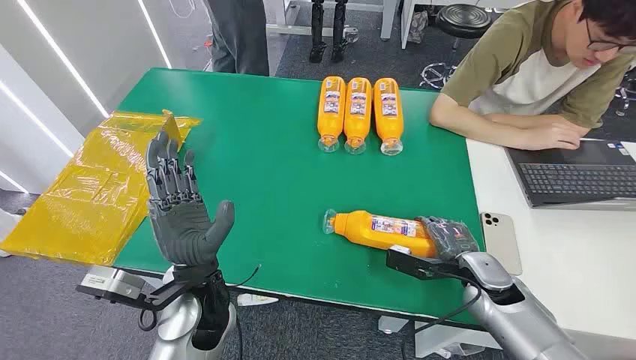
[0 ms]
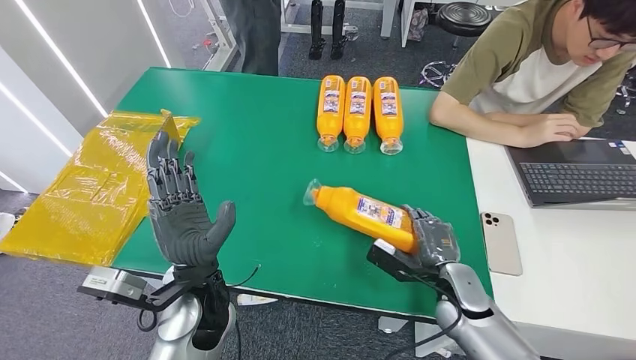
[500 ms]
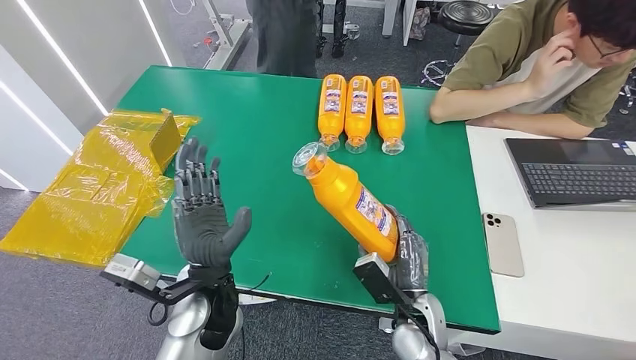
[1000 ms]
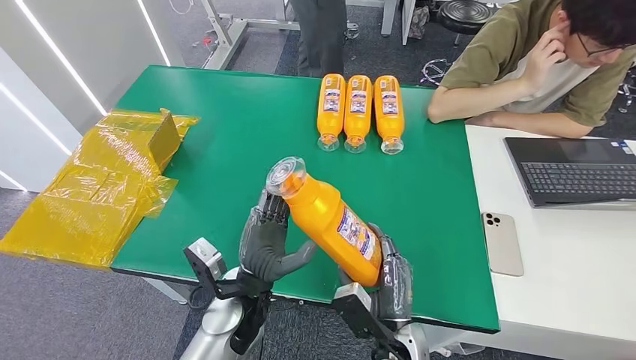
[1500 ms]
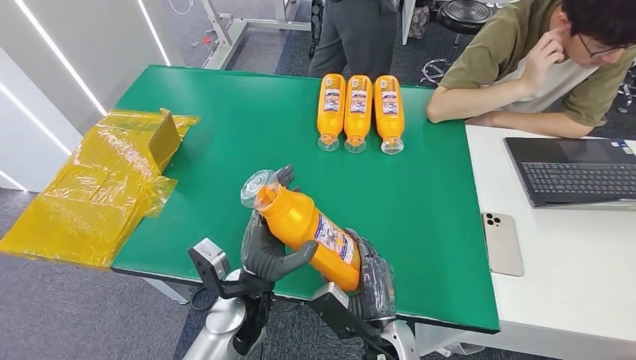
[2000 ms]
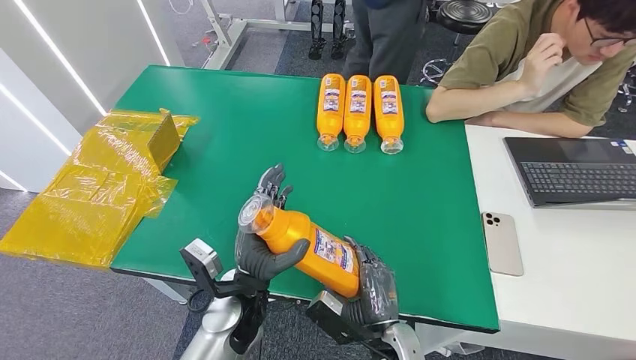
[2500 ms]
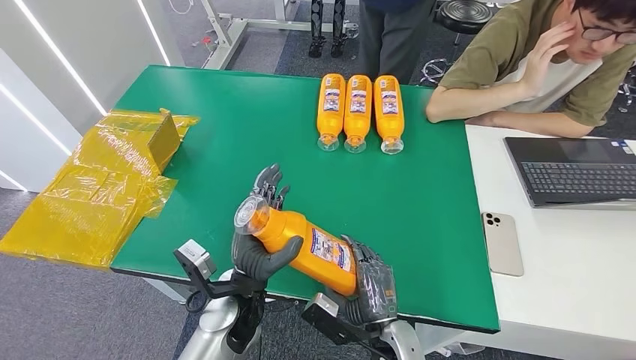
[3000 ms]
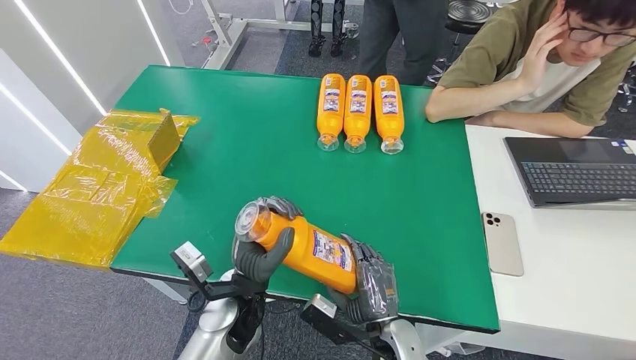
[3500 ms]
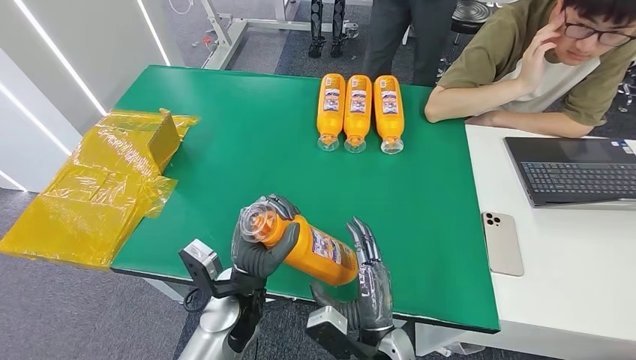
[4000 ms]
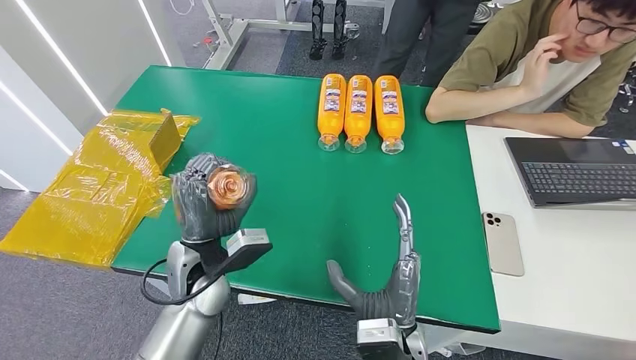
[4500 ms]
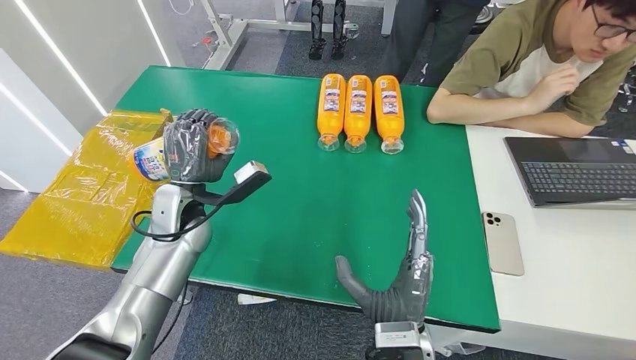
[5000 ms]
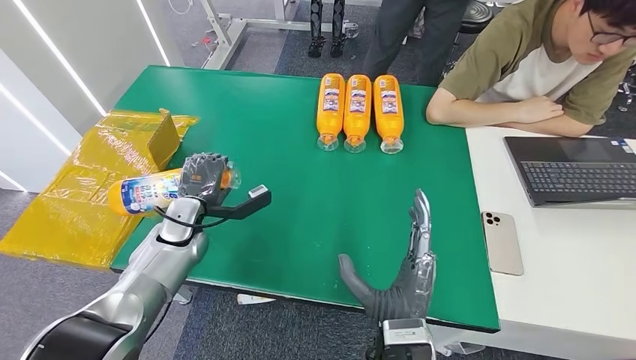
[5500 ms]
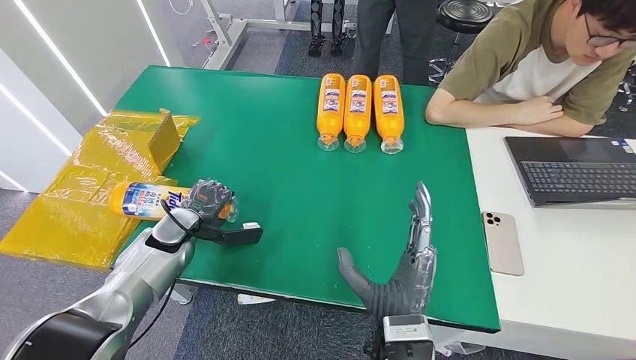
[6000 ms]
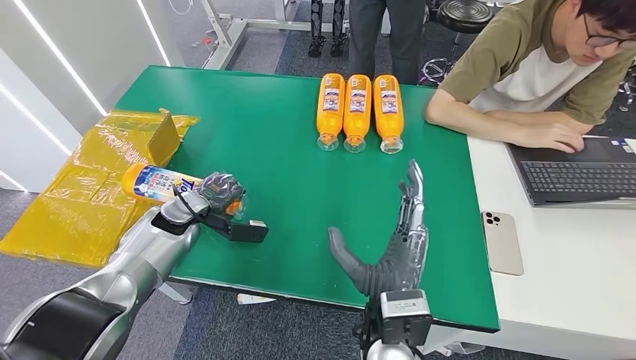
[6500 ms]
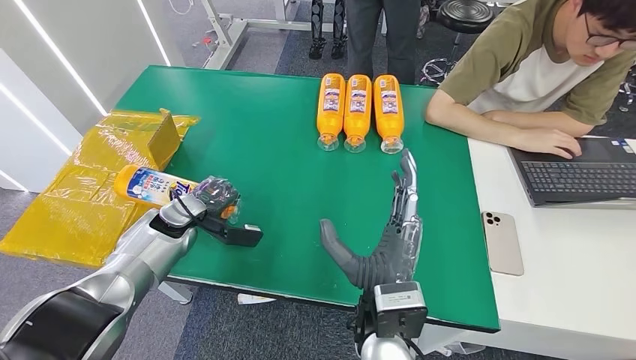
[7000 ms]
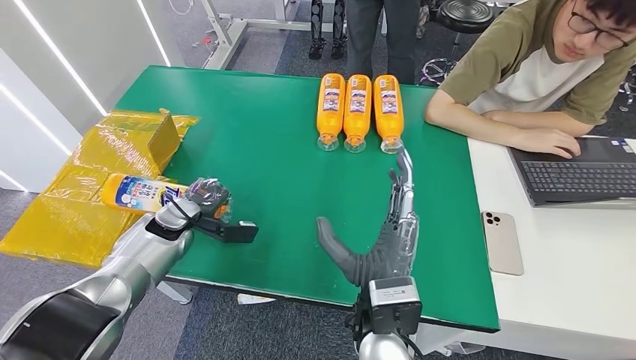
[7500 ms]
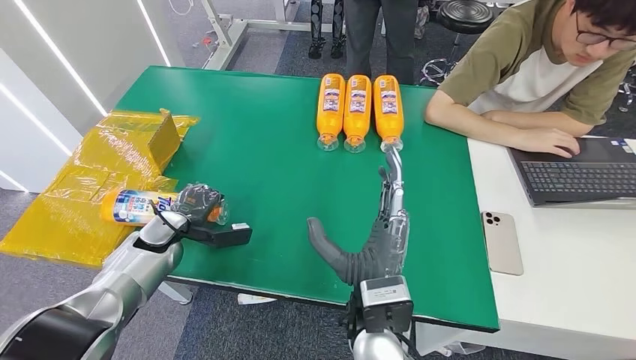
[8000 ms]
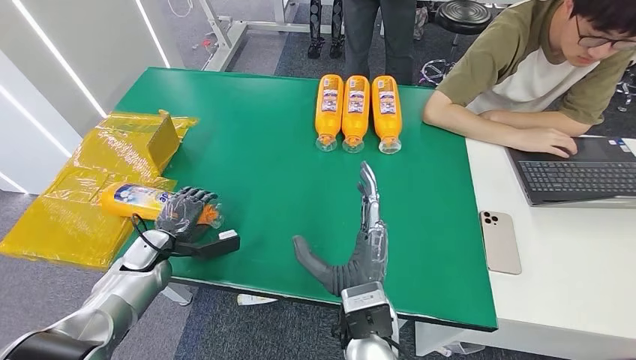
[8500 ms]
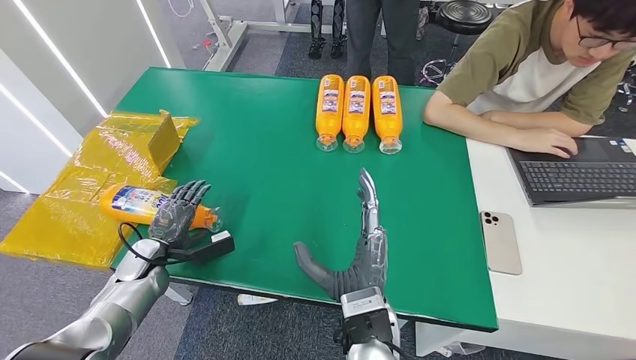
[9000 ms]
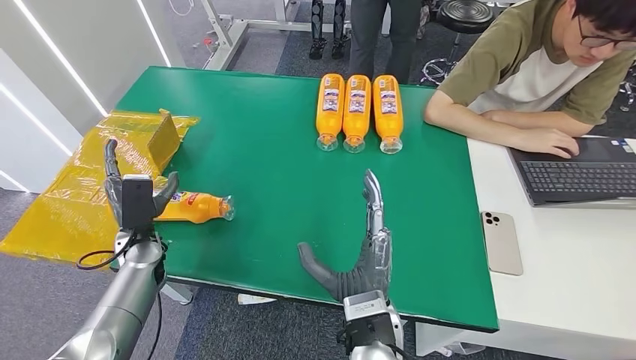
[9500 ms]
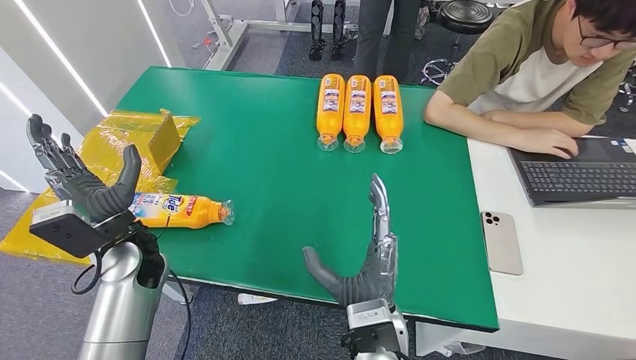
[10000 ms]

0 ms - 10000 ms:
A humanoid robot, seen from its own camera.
Step, 0 ms - 3000 ms: Pick up the bottle from the table.
Step, 4000 ms - 10000 ms: Turn the bottle to the front side.
2000 ms - 4000 ms: The hands make only small movements.
4000 ms - 6000 ms: The right hand moves upward, roughly 5 cm; the left hand travels to the left and forward by approximately 25 cm.
6000 ms - 8000 ms: The right hand moves some 5 cm.
8000 ms - 10000 ms: The left hand is displaced upward and to the right by approximately 10 cm.
